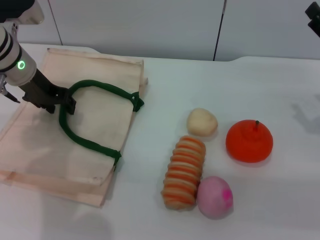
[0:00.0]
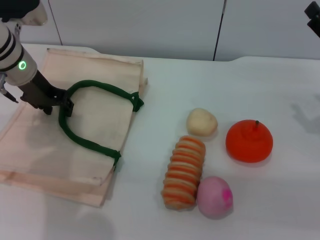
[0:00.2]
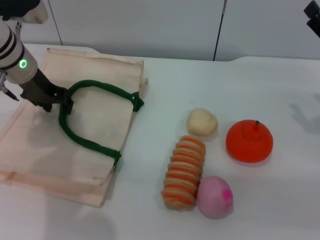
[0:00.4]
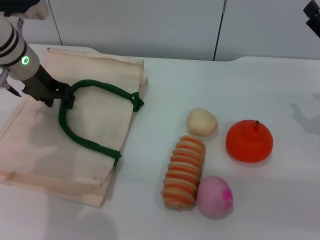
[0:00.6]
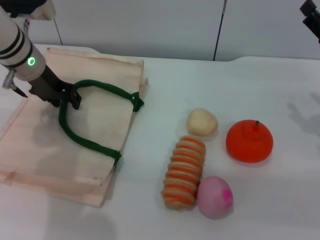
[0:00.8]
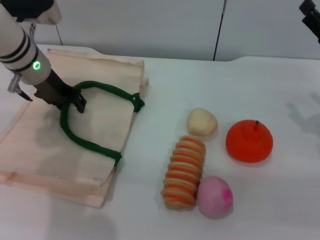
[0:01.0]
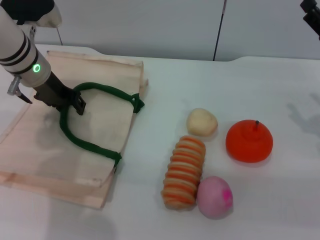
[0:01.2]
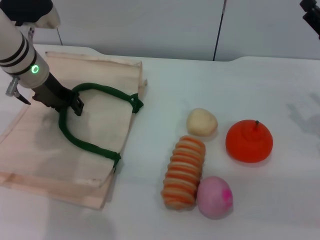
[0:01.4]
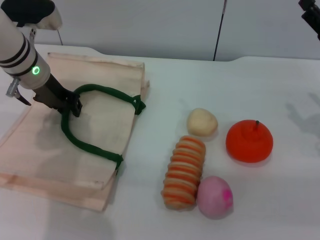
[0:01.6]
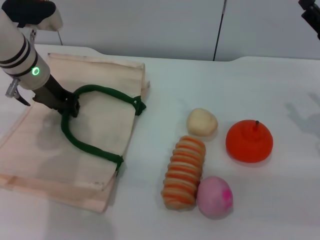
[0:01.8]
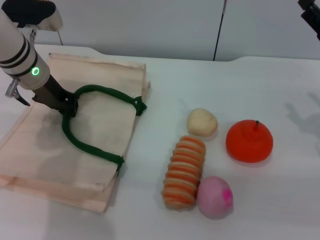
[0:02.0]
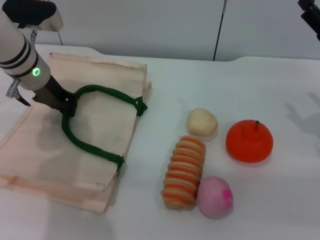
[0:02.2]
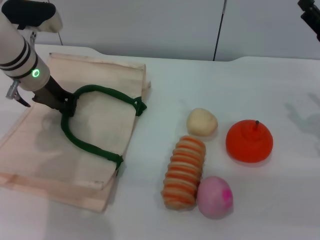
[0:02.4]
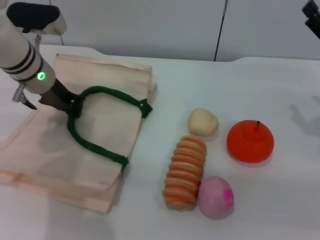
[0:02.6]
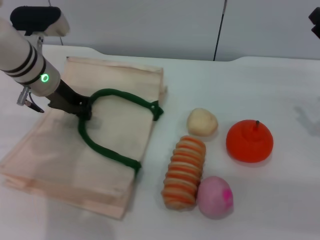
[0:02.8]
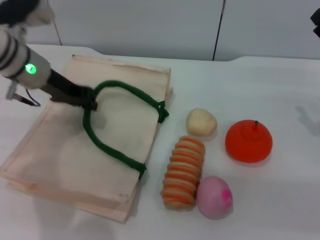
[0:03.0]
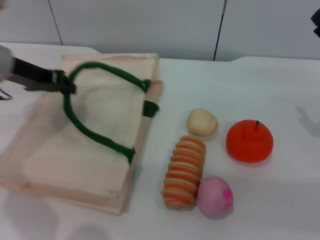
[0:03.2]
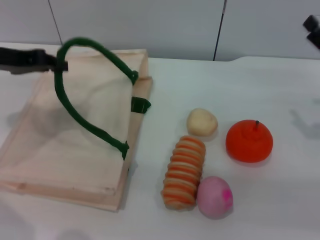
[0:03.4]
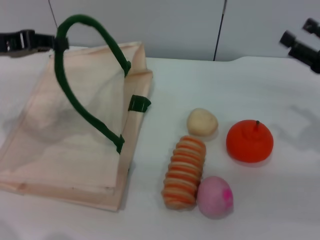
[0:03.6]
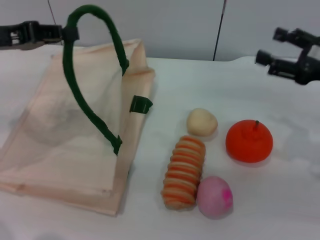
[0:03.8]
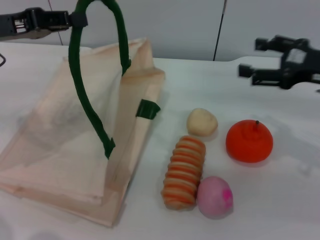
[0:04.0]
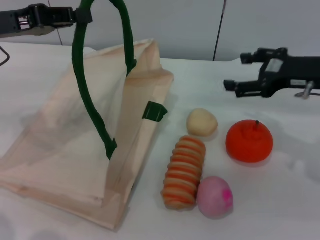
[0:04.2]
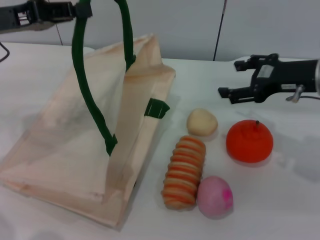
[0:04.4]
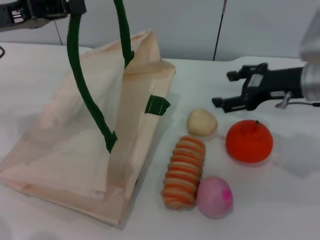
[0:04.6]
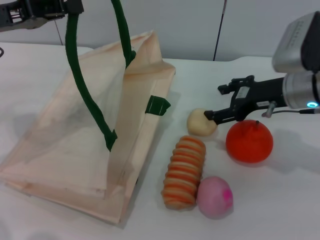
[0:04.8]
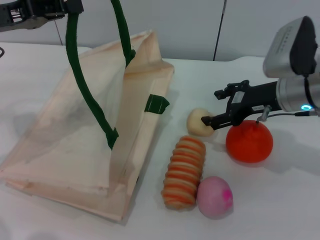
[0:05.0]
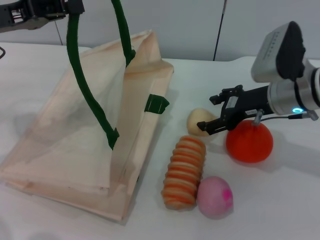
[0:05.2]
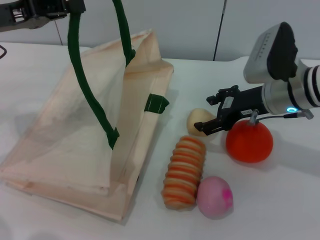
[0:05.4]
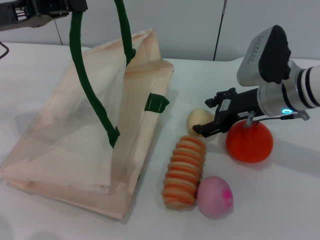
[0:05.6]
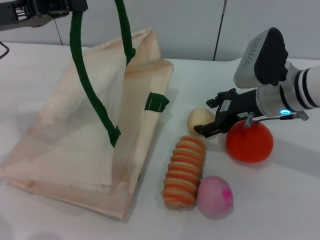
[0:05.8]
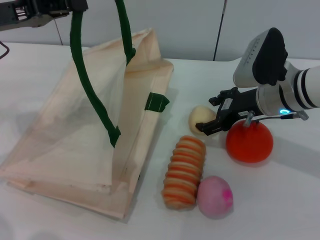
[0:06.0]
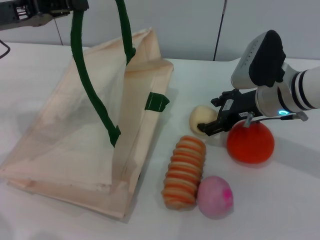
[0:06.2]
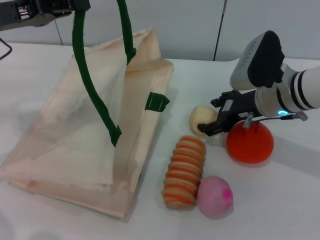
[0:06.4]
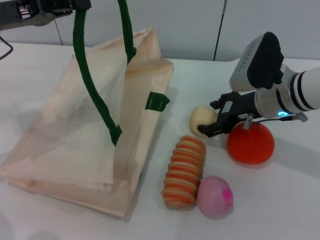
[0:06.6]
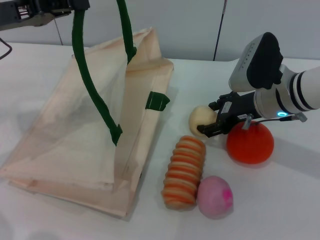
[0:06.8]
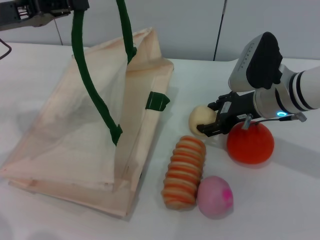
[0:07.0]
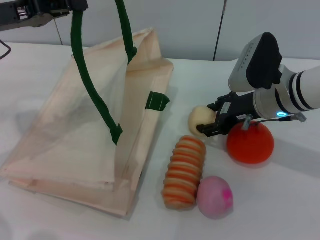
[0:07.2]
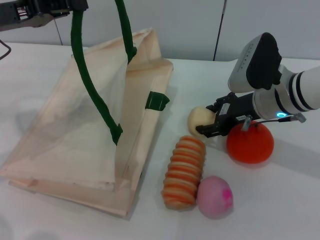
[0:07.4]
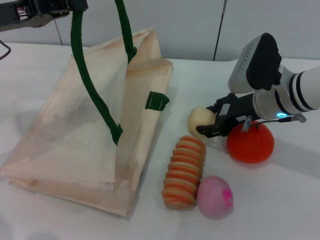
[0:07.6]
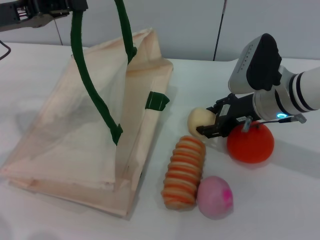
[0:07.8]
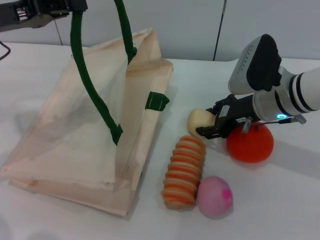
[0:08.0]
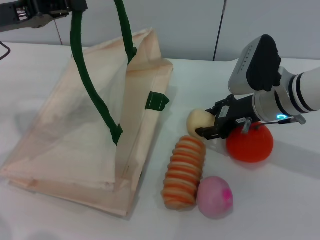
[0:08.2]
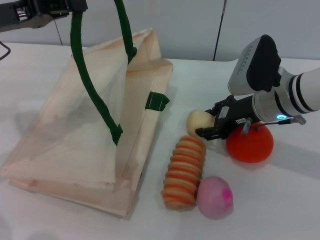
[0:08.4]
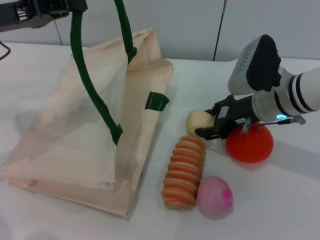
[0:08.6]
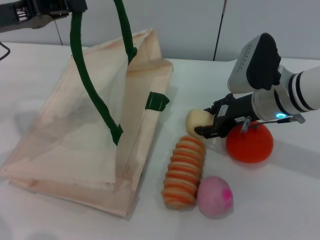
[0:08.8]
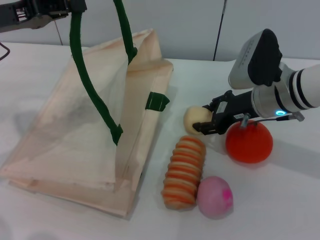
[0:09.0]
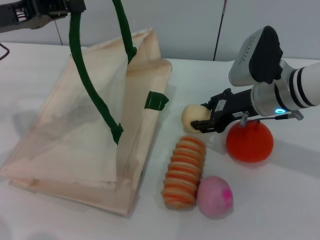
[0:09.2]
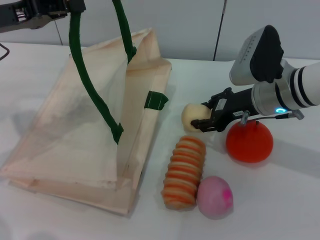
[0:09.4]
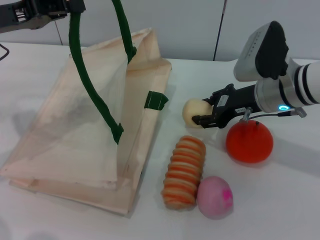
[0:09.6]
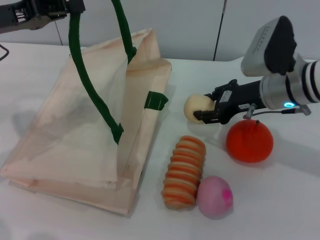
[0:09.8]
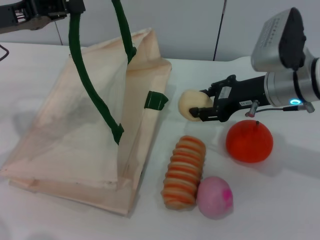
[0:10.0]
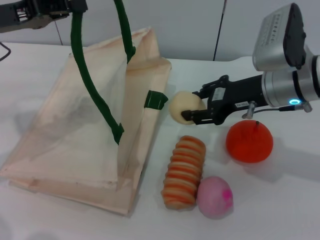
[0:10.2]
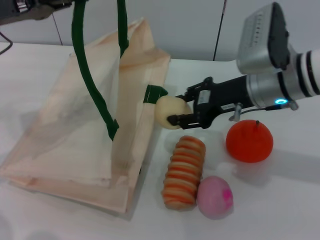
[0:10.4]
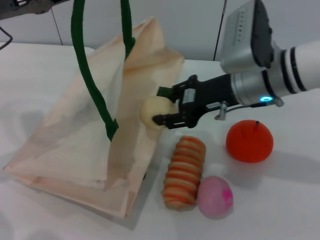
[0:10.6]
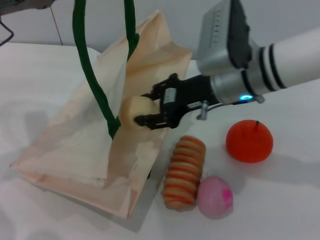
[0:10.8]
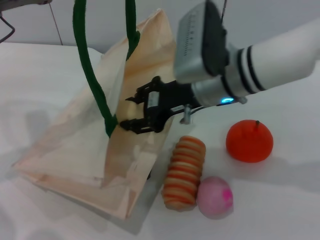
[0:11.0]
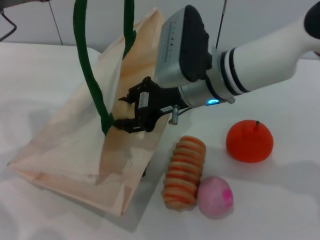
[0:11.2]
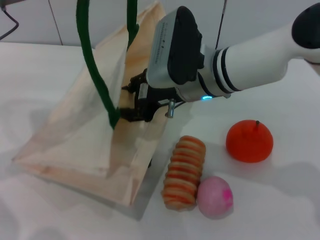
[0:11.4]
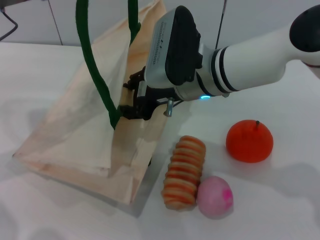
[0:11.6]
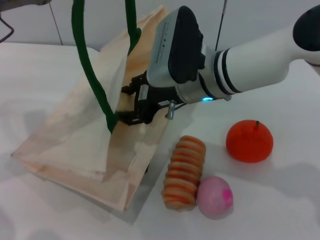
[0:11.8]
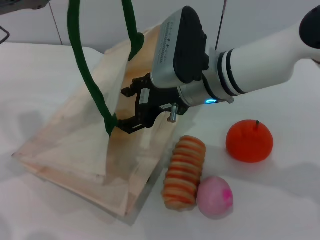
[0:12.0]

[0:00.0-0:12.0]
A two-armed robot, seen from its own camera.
Task of the whole recording: pick up the egg yolk pastry from the table and place it in the white handbag.
Step, 0:00.0 to 0:03.2: Lift the woven bag with the left gripper to open it.
Step, 0:03.4 to 0:10.2: Pick up the egg yolk pastry with the right gripper.
0:00.0 to 0:01.6: The grippers make only small movements.
0:01.6 to 0:03.0: The left gripper closes its fingers.
0:03.0 to 0:04.4: The left gripper travels upward, backward and to the left by some 10 cm. Meanwhile the right gripper goes some 10 cm to the left and upward.
0:04.4 to 0:06.0: The right gripper goes approximately 10 cm to the left and downward.
0:06.0 to 0:07.6: The right gripper closes up.
0:07.6 to 0:09.0: The two grippers keep their place.
0:09.0 to 0:10.4: The right gripper shifts by some 5 cm.
0:10.4 to 0:12.0: The right gripper is displaced to the left by approximately 10 cm.

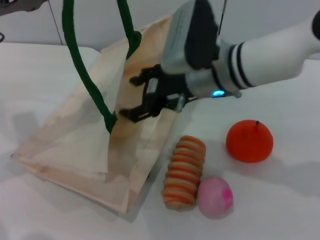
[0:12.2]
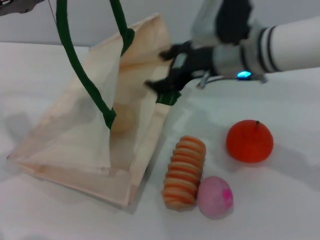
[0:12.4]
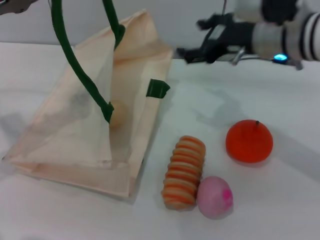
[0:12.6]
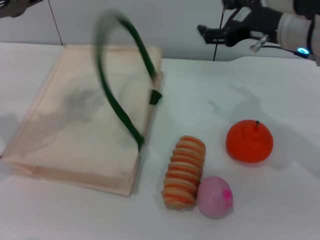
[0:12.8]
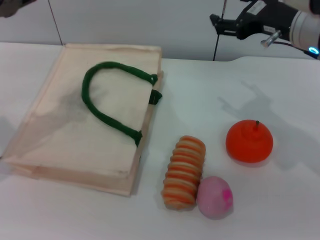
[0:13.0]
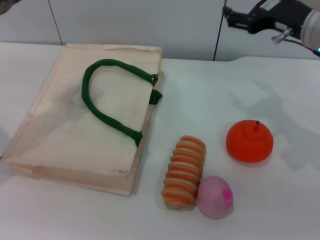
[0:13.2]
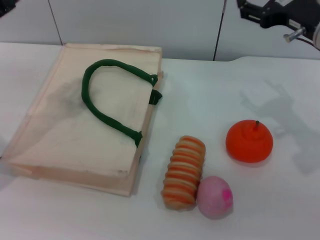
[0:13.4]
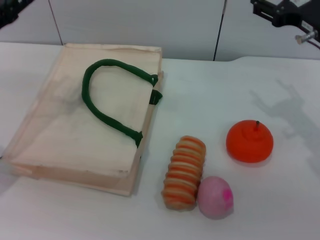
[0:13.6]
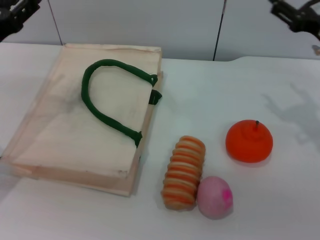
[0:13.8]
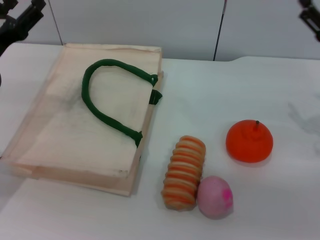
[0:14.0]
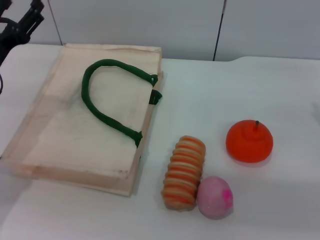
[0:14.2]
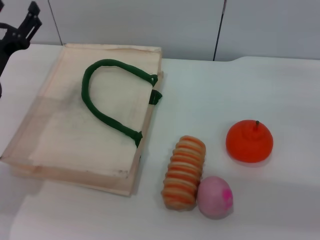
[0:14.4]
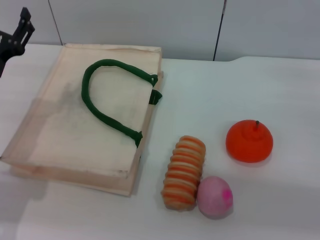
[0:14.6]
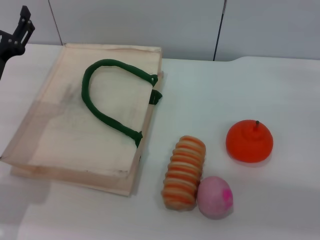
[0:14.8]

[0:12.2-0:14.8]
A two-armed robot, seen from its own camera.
Task of the whole recording: pick up the egg yolk pastry from the table and place it in the white handbag.
Step, 0:12.6 to 0:13.2: Lower the woven bag with the left gripper to close it.
0:12.2 to 0:13.4: The left gripper travels downward by roughly 5 cm, and opens its fingers. The right gripper is displaced to the right by some 15 cm.
0:13.4 to 0:14.8: The right gripper heads to the right, downward and backward, covering roughly 15 cm, while the left gripper shifts about 10 cm downward.
